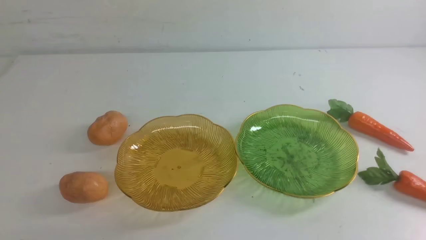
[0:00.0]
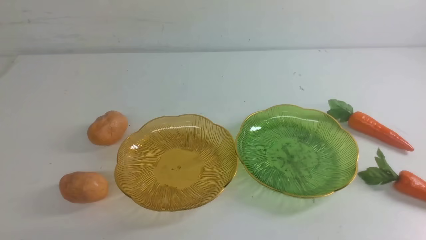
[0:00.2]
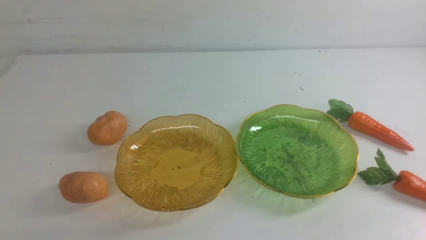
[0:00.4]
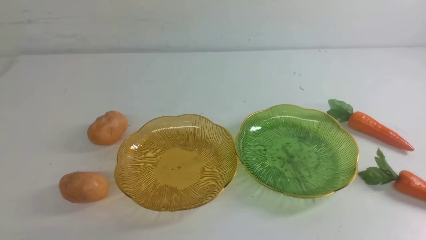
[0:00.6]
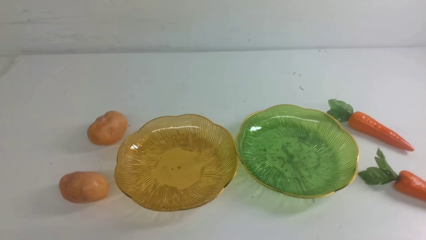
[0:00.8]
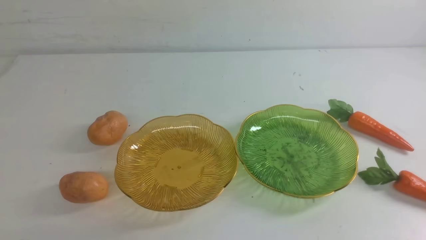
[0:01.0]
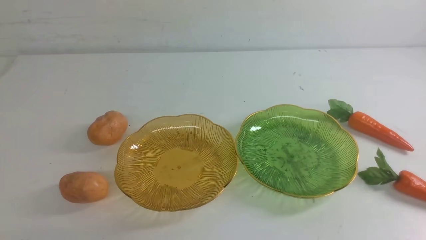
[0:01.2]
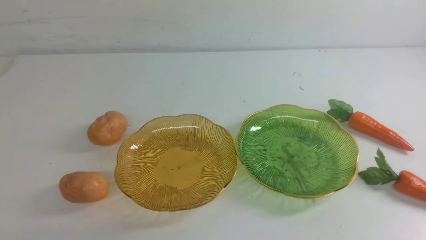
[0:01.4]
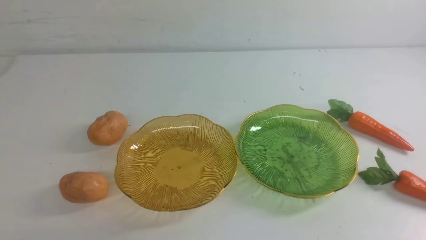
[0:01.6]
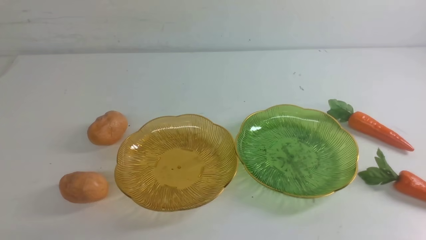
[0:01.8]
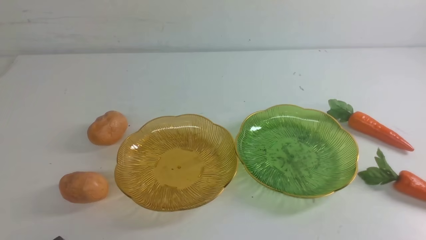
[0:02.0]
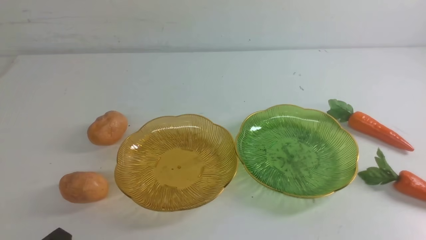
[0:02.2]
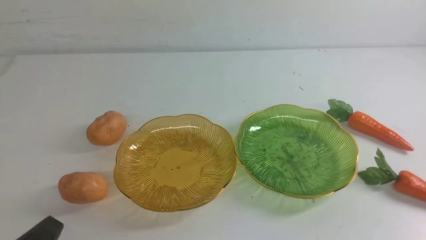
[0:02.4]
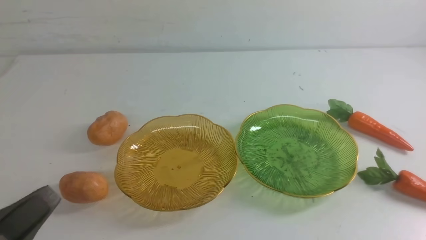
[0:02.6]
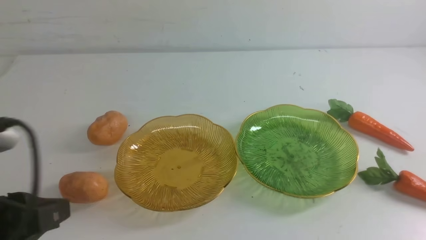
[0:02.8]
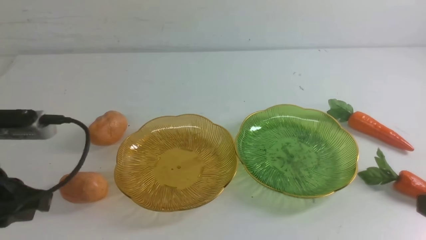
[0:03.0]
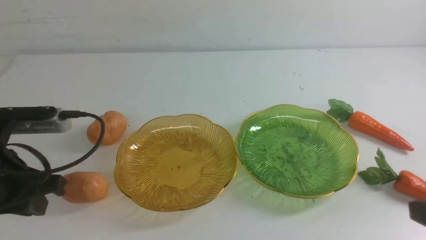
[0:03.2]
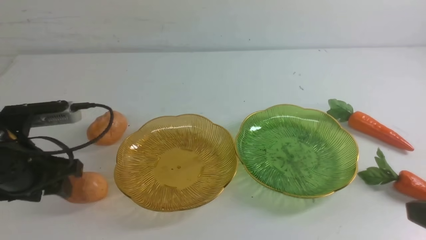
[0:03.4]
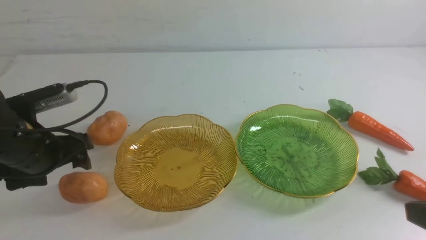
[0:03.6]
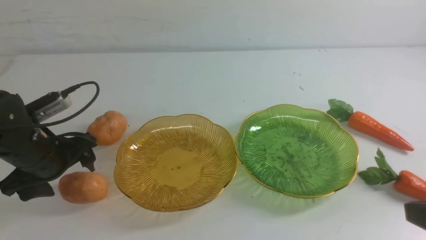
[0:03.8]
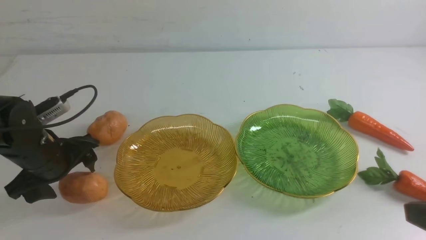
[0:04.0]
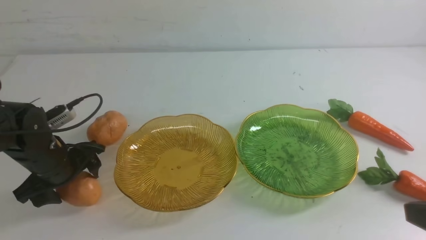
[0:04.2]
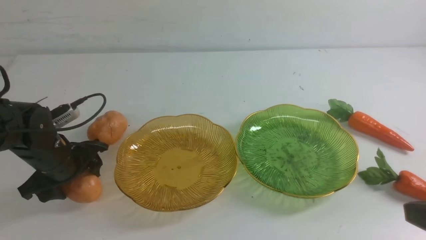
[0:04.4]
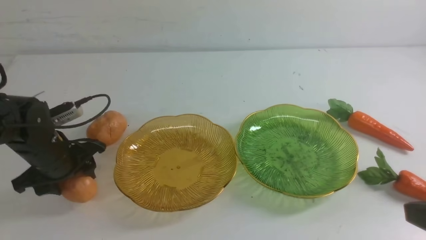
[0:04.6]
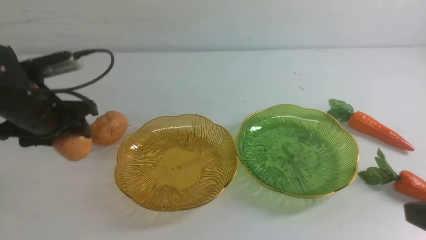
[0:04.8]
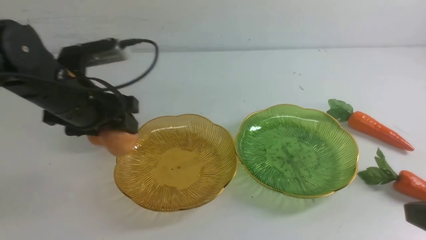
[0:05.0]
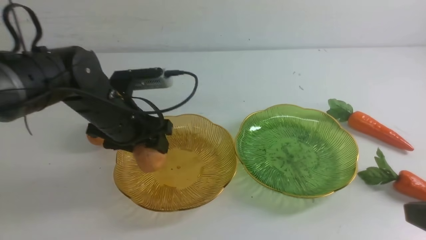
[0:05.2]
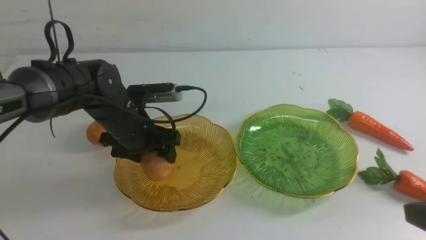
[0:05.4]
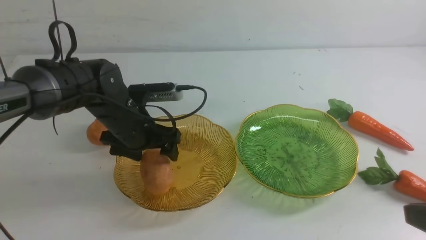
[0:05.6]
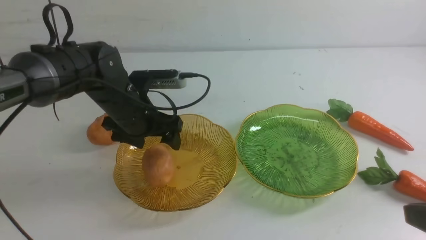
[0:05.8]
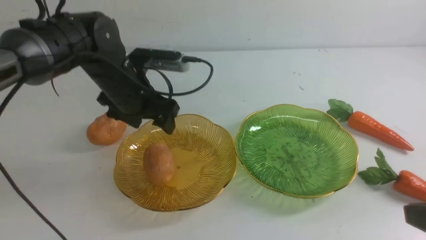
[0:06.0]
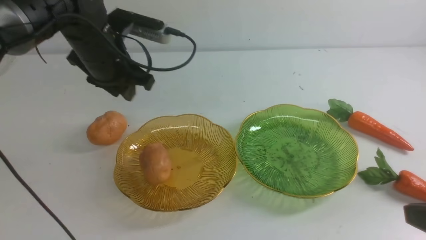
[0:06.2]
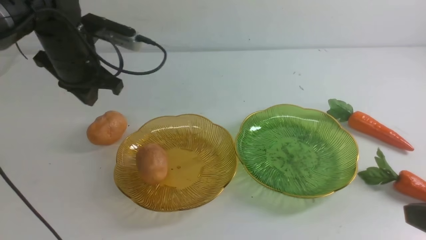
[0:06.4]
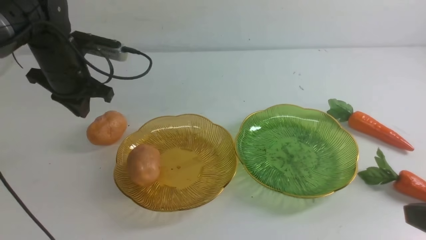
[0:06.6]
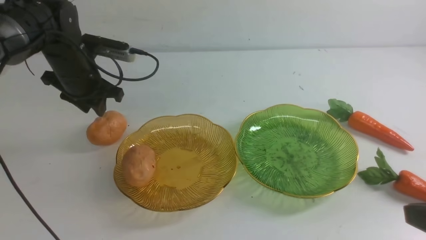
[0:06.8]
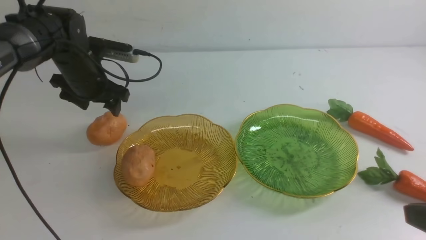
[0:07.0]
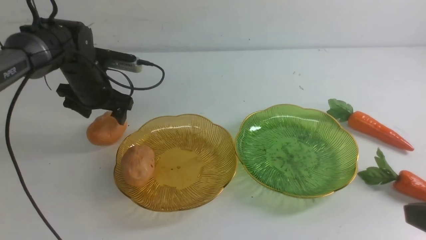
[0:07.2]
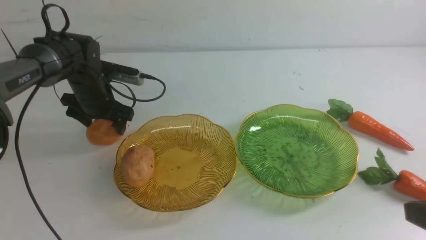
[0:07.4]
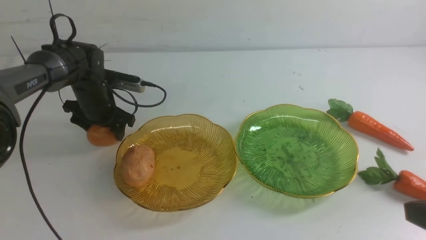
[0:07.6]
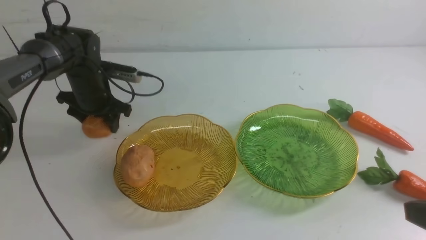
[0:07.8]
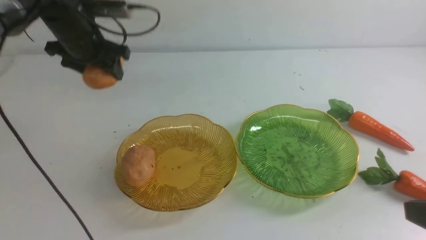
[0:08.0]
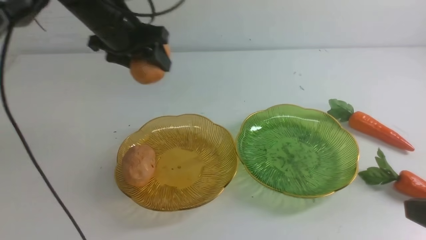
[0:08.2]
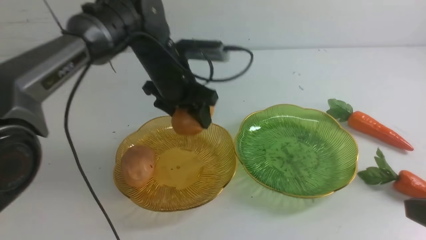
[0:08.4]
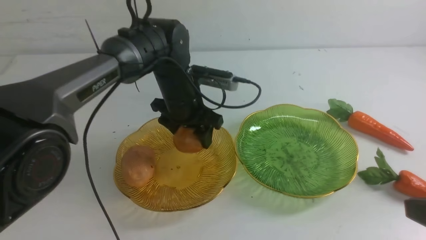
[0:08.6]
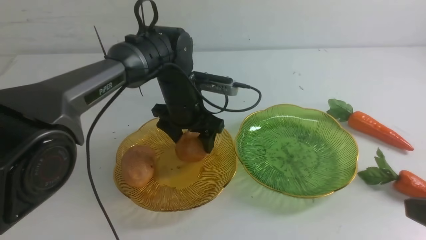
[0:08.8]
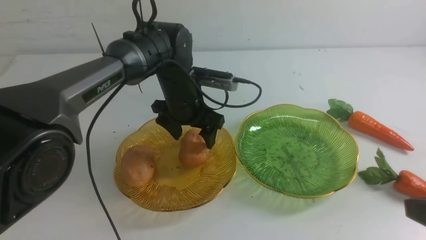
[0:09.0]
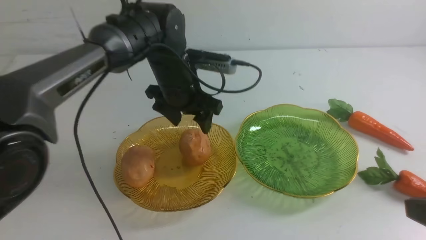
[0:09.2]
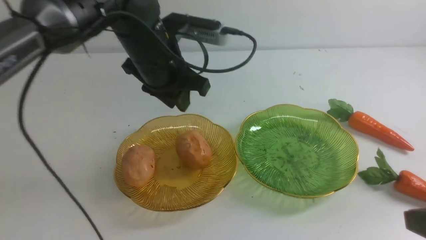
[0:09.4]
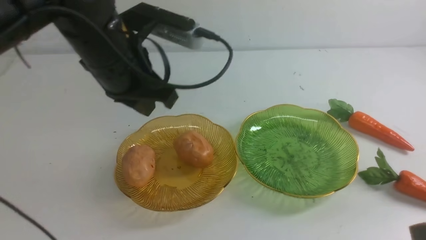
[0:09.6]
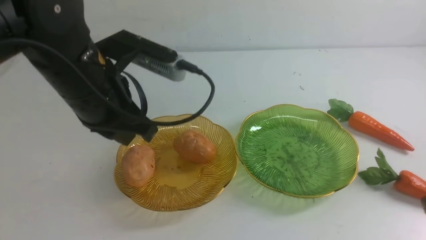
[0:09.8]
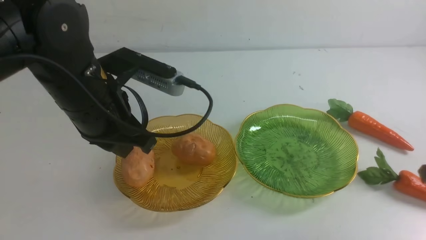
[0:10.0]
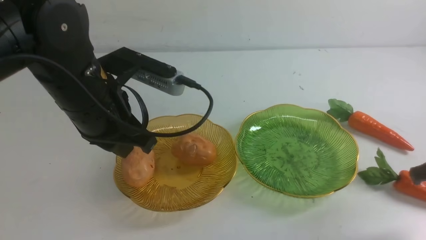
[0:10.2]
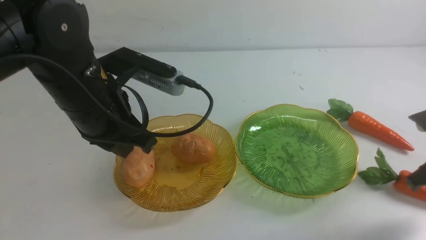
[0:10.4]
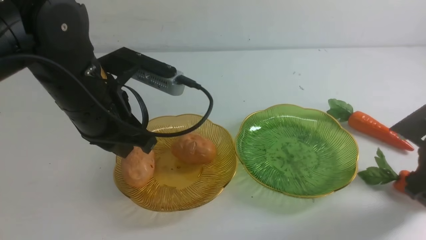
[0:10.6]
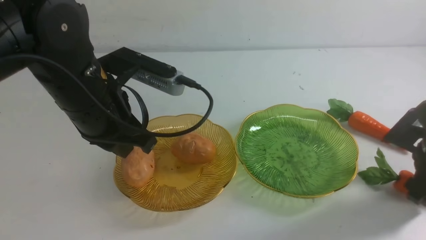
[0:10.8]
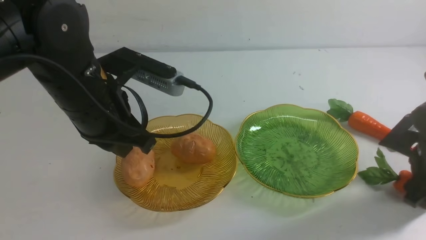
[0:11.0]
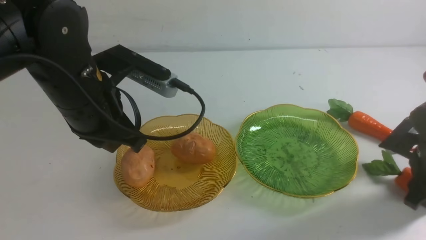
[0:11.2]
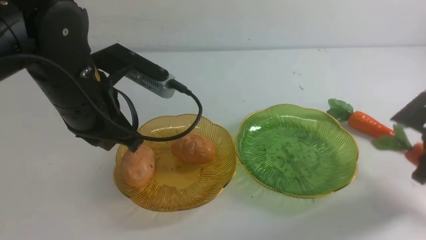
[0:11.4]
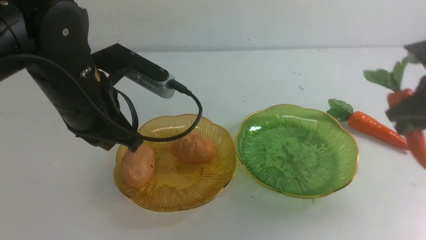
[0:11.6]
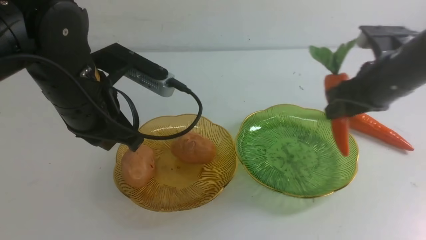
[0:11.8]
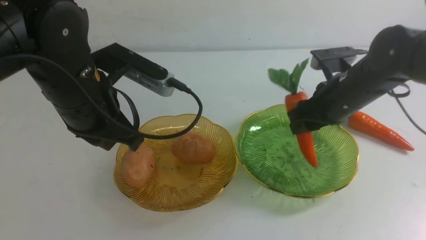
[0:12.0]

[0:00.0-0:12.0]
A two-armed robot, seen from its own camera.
Step, 0:00.0 to 0:05.8: Grab a potato with your left arm and put it on the left plate.
Step, 0:06.2 to 0:09.2: Grab a potato with your left arm and put it on the left plate.
0:01.6 to 0:03.0: The left gripper goes about 15 cm upward and forward.
0:03.0 to 0:04.4: The left gripper heads forward and downward, covering roughly 20 cm, and opens up.
0:04.4 to 0:06.0: The left gripper moves to the right, upward and forward, some 15 cm.
0:06.0 to 0:07.6: The left gripper shifts some 15 cm to the left, forward and downward, and closes, then opens again.
0:07.6 to 0:09.0: The left gripper goes some 20 cm to the right, upward and backward.
0:09.0 to 0:10.4: The left gripper shifts roughly 10 cm backward and to the left, and closes. The right gripper goes roughly 25 cm forward and downward, and opens.
0:10.4 to 0:12.0: The right gripper is displaced forward and upward by approximately 15 cm, reaches approximately 15 cm to the left, then returns, and closes its fingers.

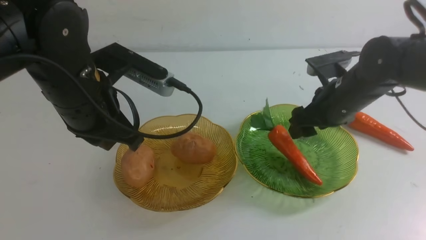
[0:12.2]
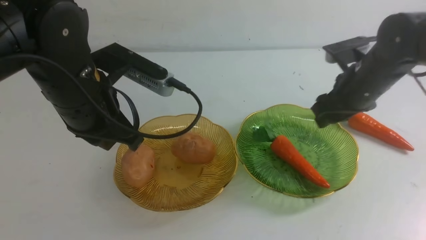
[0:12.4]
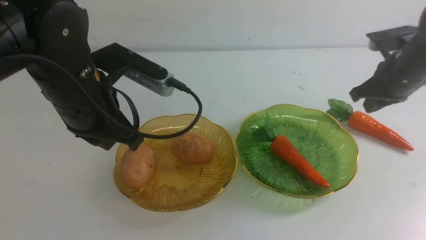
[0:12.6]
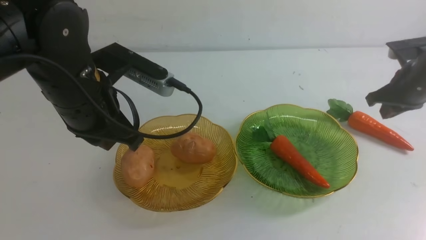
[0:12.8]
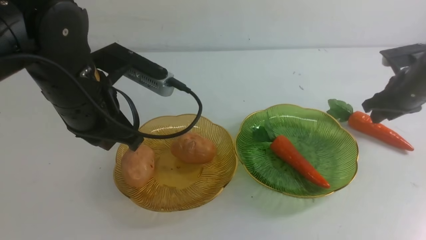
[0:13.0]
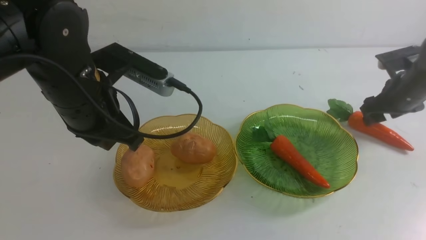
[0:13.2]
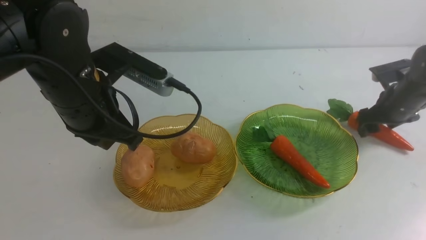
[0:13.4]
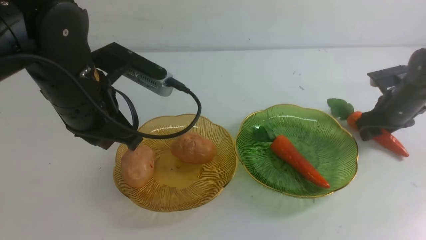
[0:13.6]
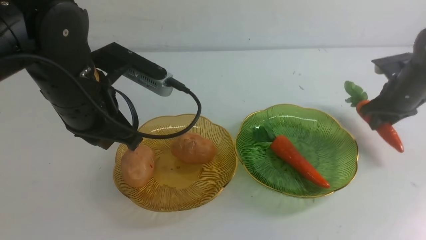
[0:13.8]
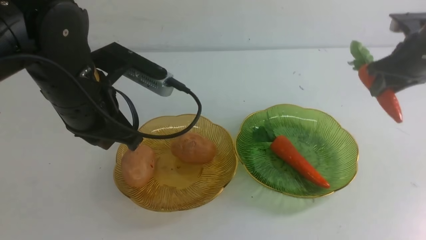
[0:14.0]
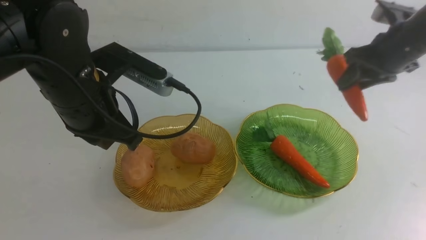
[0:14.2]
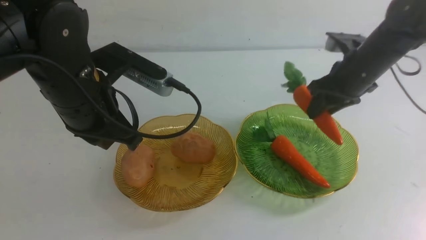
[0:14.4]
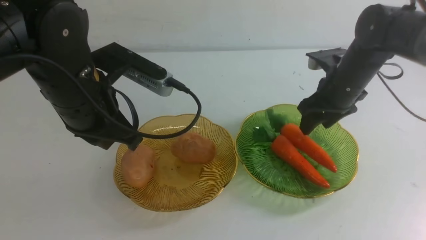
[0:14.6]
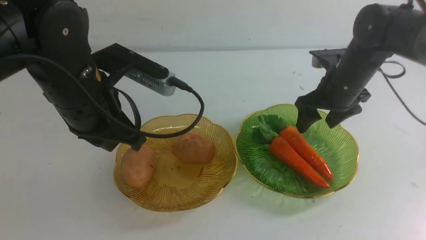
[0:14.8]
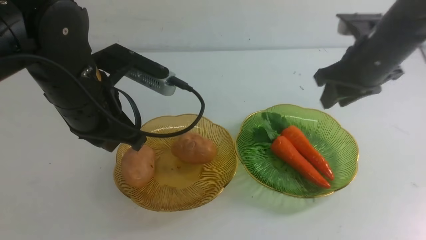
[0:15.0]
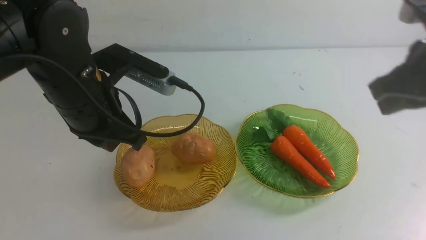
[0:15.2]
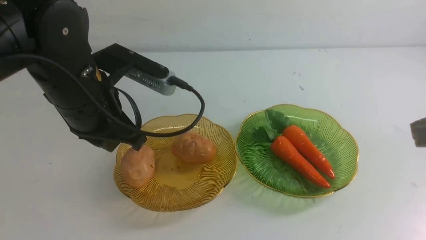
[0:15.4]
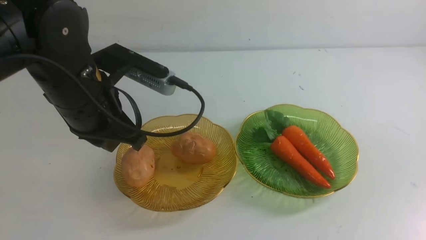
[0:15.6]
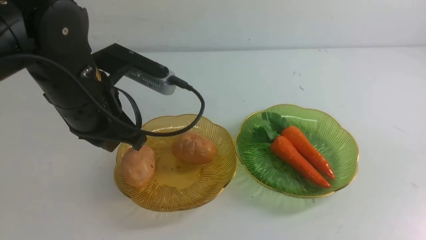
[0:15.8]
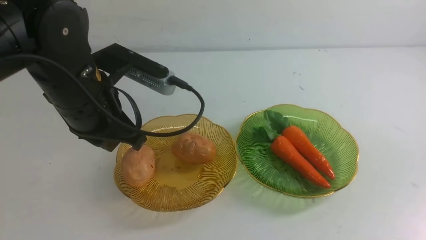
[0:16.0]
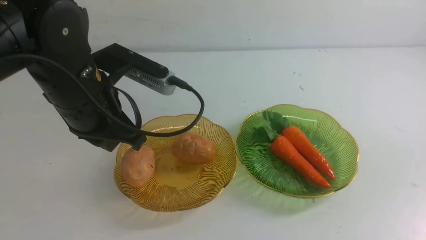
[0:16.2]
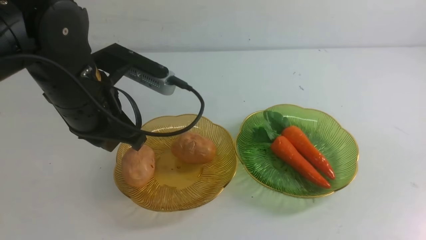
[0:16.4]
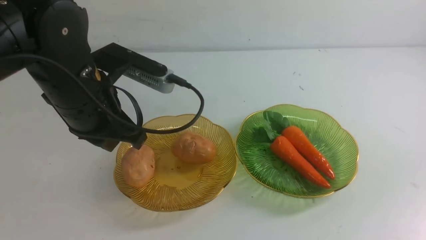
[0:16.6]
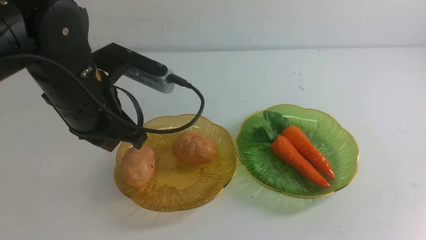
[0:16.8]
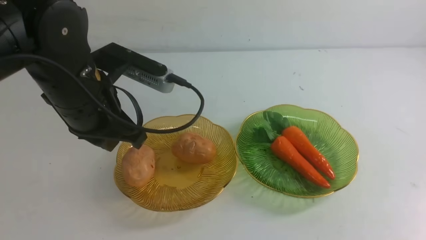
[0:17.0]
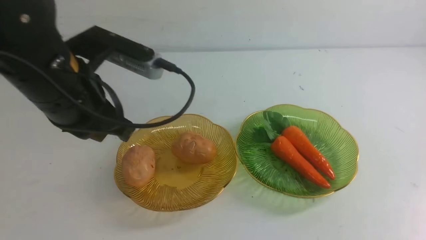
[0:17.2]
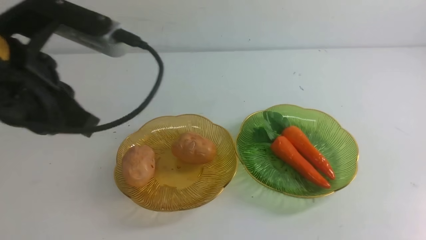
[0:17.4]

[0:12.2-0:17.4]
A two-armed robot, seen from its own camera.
Step, 0:12.2 to 0:15.0: use the right arm to grab a carrot and put it into the right plate.
0:12.2 to 0:14.0: The right gripper heads to the left and upward, covering some 15 cm.
0:14.0 to 0:15.6: The right gripper moves backward, approximately 30 cm, and closes.
0:15.6 to 0:17.4: The left gripper travels backward by some 15 cm; the right gripper travels downward by some 10 cm.
